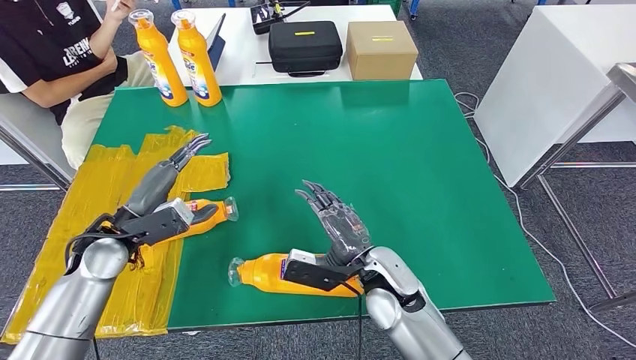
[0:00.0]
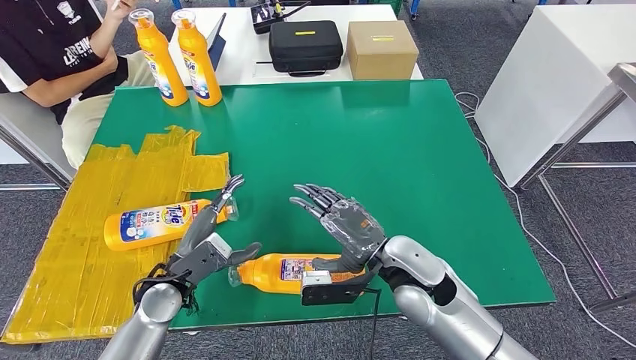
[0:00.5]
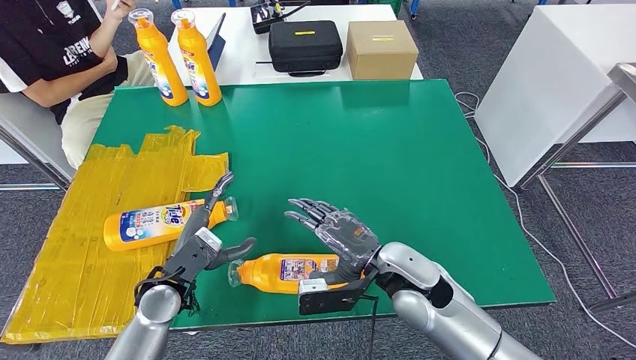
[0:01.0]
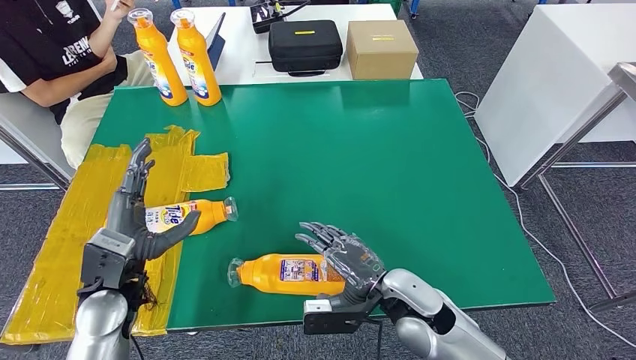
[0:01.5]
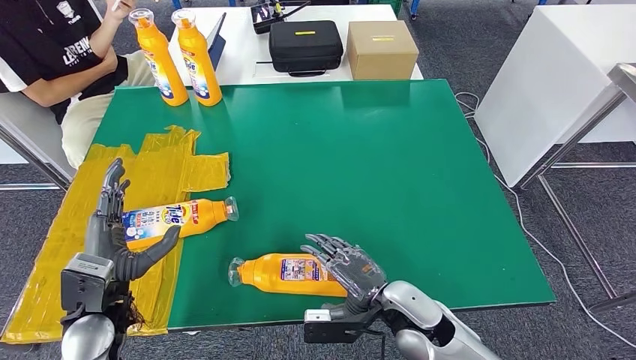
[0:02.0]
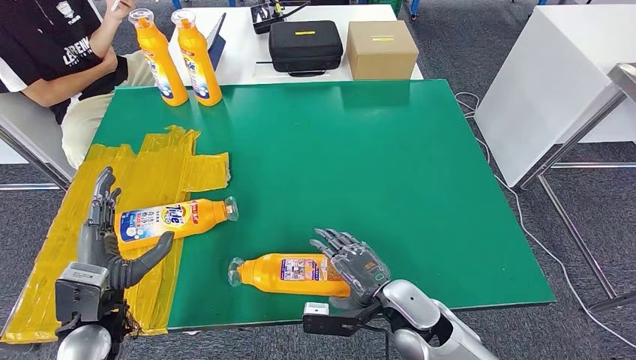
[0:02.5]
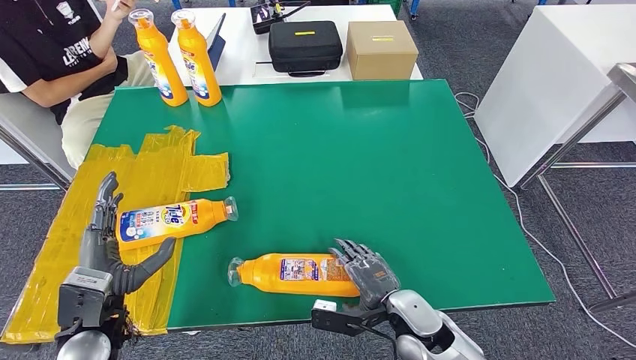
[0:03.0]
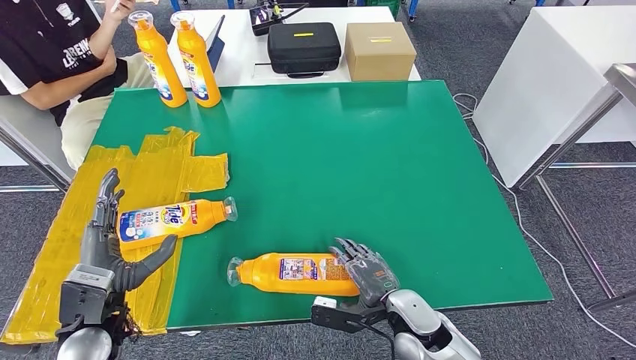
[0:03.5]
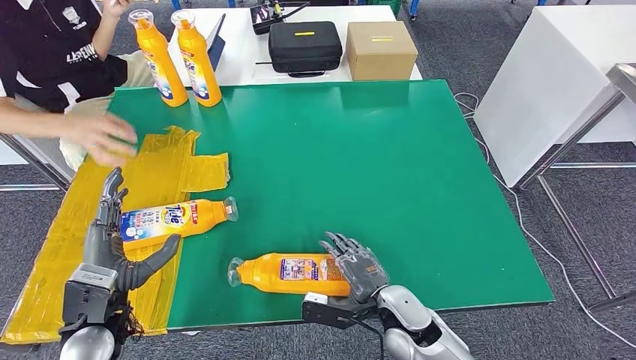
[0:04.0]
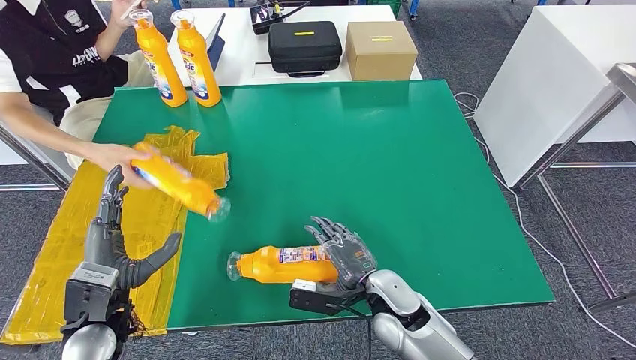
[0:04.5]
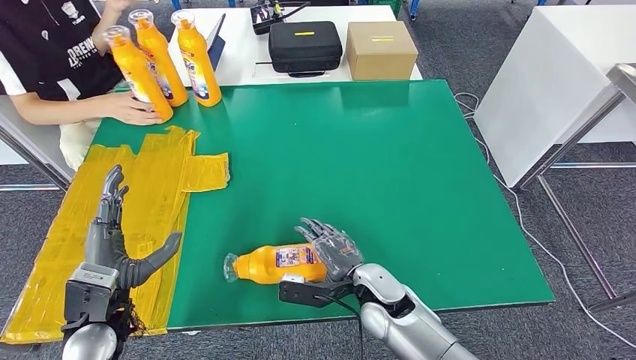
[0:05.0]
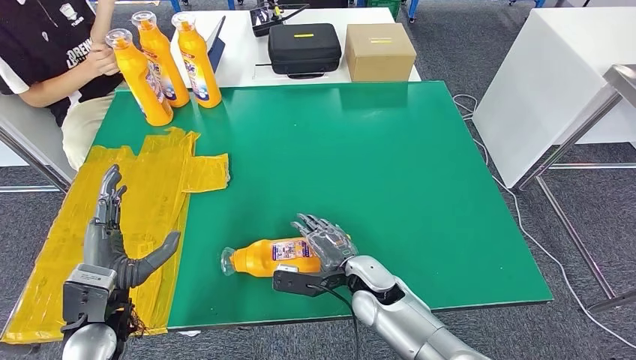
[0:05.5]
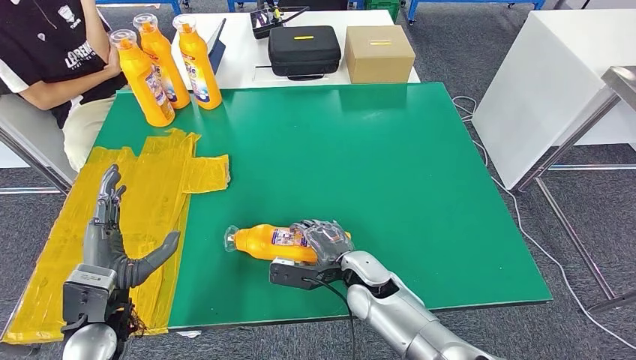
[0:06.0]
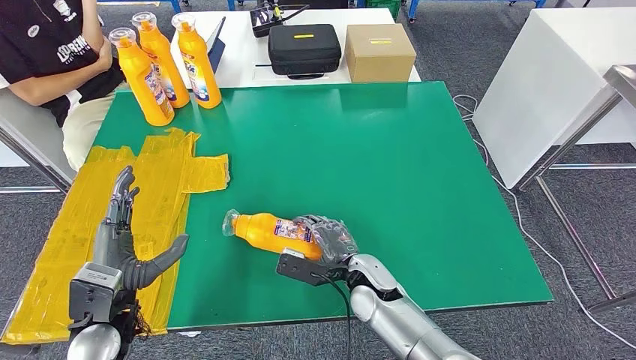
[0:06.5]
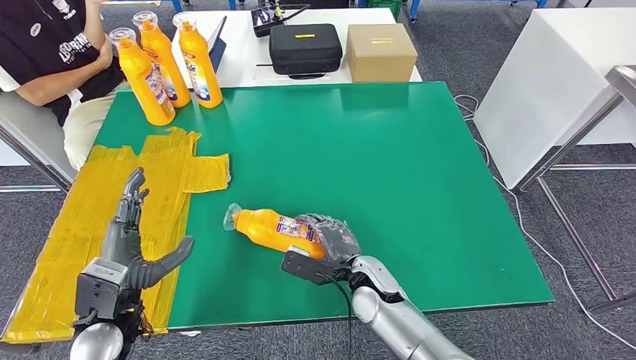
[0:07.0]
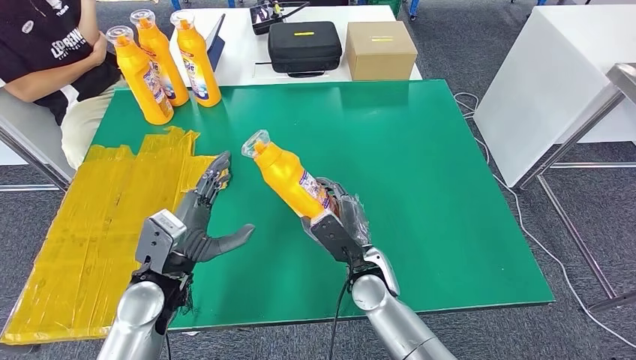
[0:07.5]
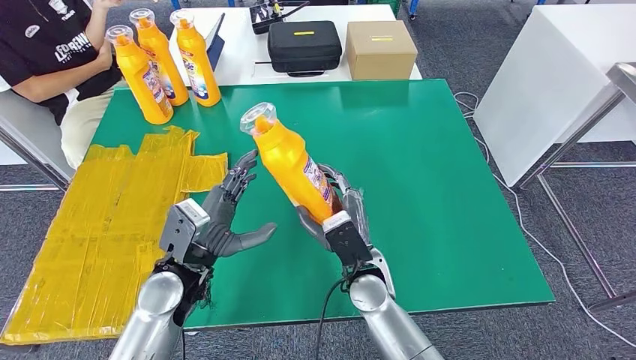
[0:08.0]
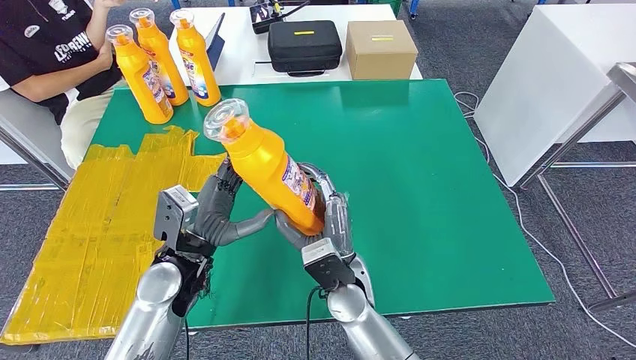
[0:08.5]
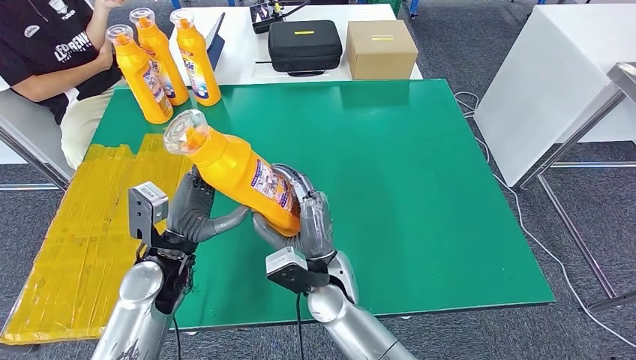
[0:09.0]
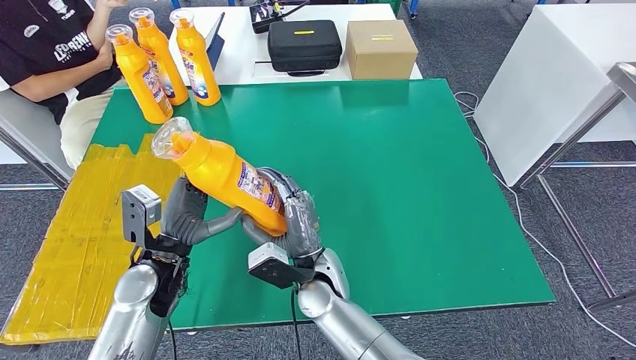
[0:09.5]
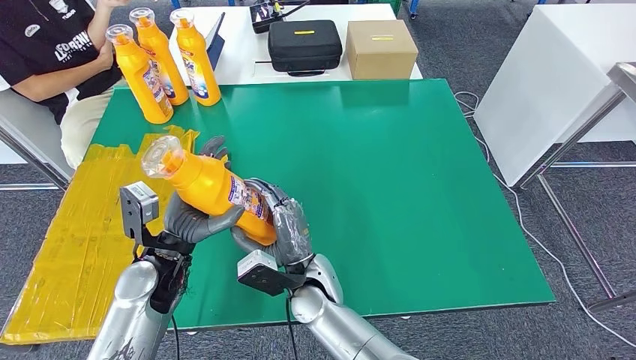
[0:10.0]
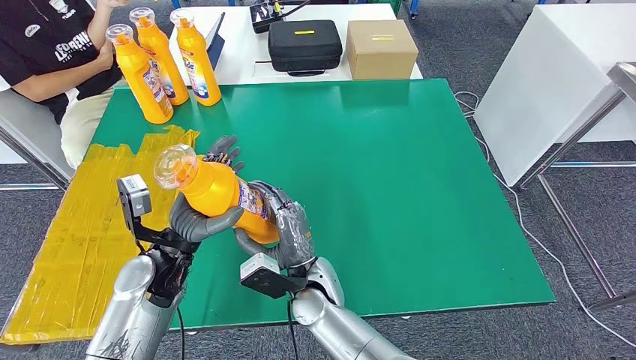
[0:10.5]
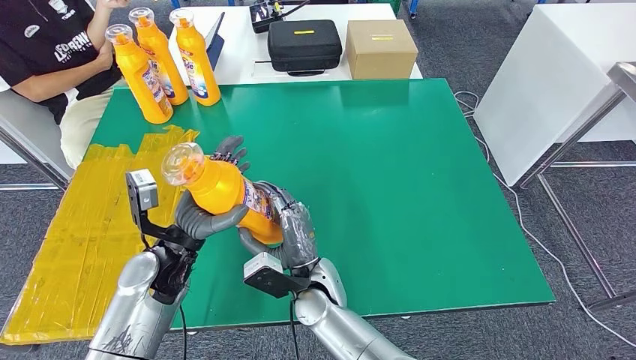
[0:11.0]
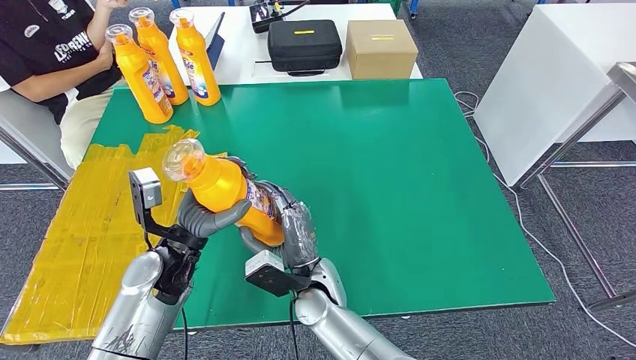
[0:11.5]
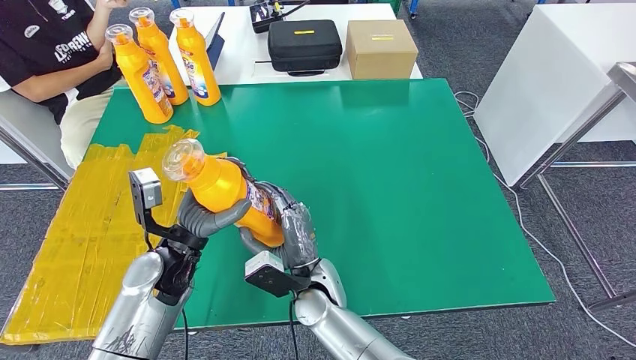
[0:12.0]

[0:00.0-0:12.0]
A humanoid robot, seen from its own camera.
Step, 0:02.5 to 0:08.5: Pick up the bottle from the table.
0:00.0 to 0:02.0: The right hand travels backward by some 5 cm. Meanwhile the left hand is displaced backward by approximately 10 cm.
0:02.0 to 0:04.0: The hands stay close to where they were, moving slightly.
0:08.0 to 0:10.0: The right hand moves to the left, roughly 10 cm.
0:10.0 to 0:12.0: The hands stay close to where they were, moving slightly.

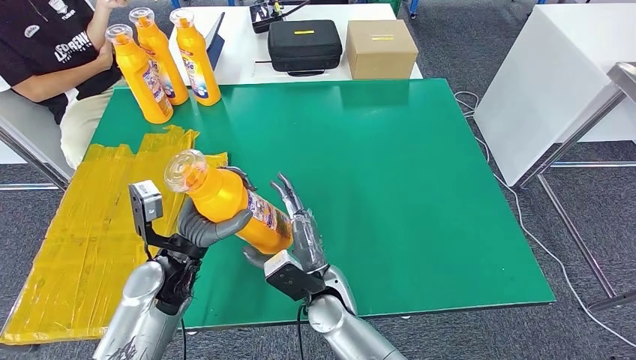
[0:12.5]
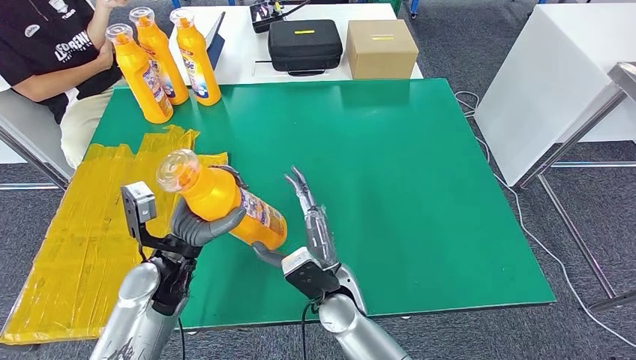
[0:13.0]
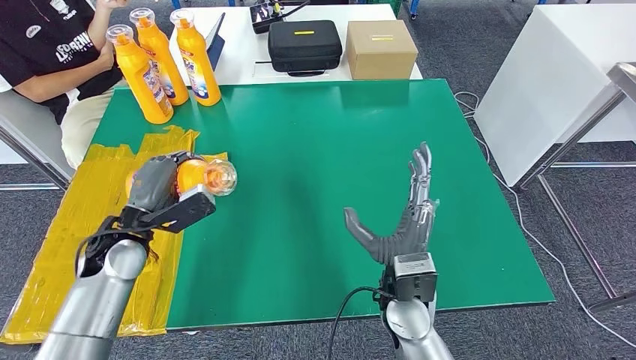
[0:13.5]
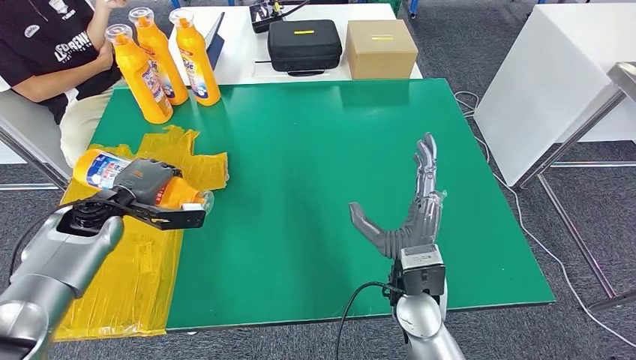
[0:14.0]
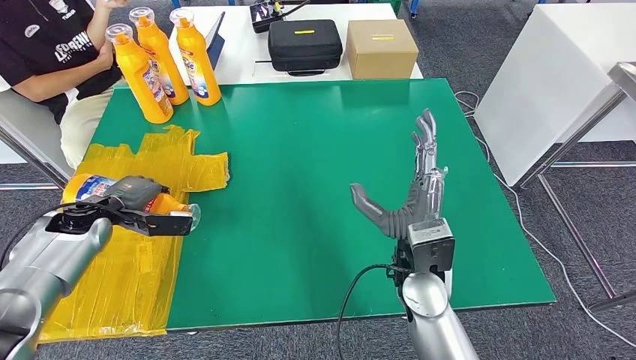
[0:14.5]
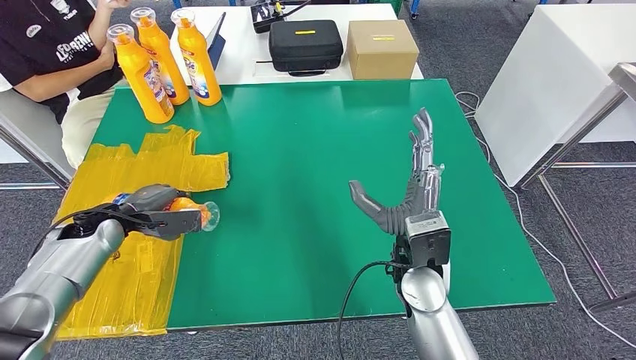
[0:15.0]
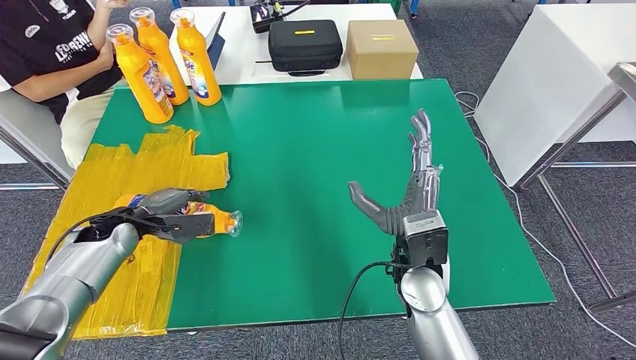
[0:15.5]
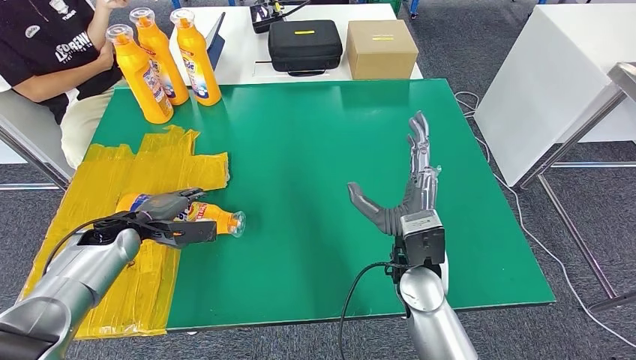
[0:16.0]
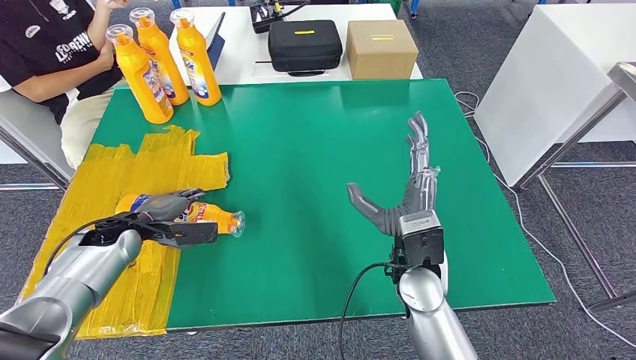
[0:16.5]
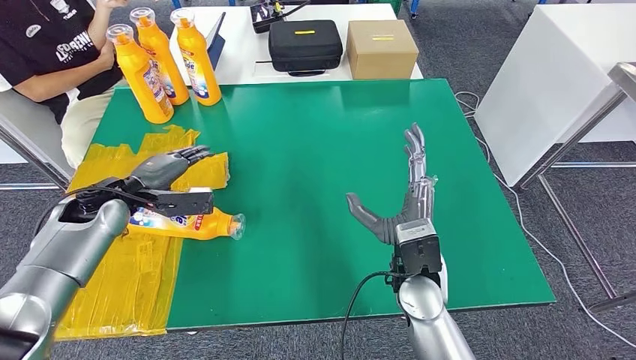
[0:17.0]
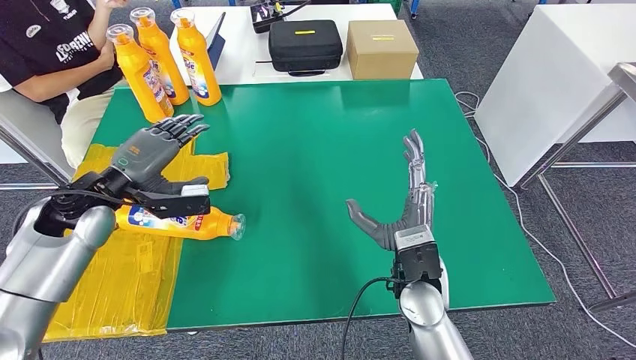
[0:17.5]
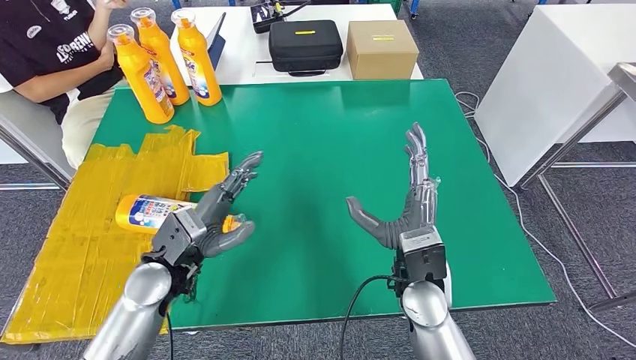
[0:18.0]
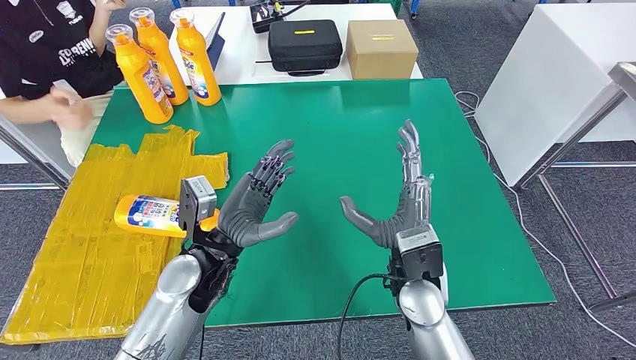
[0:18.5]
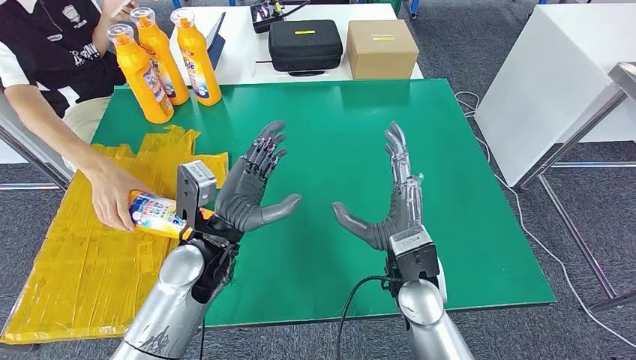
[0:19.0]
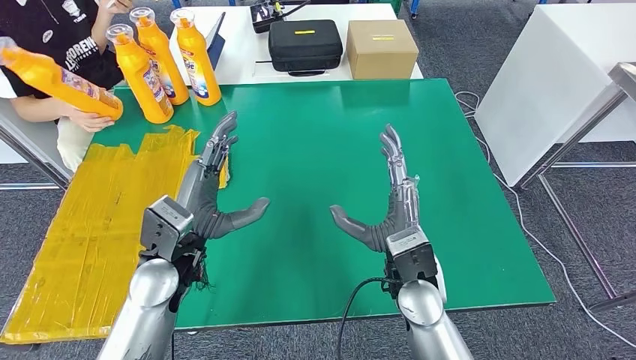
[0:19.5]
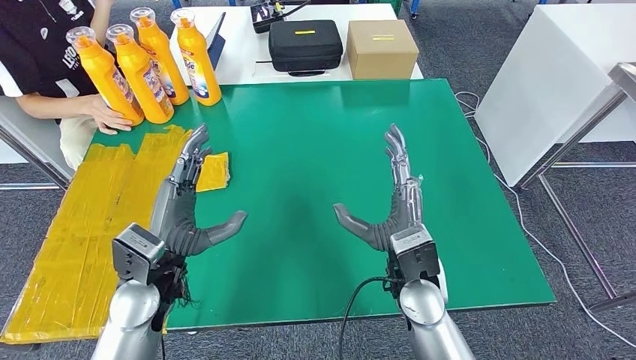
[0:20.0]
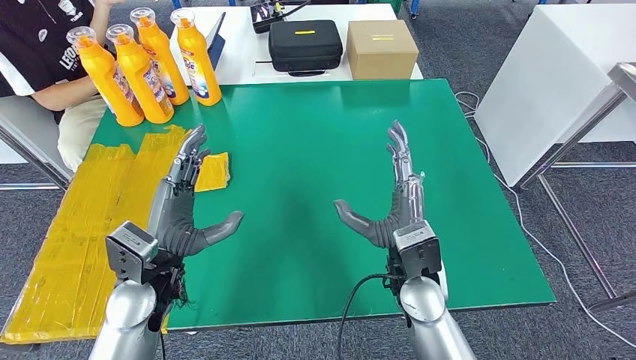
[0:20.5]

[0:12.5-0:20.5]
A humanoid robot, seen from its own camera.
Step, 0:12.5 to 0:20.5: Flip the bottle to face forward.
0:12.5 to 0:14.5: The right hand travels to the right and upward by about 15 cm. Meanwhile the left hand goes some 20 cm to the left and forward.
0:14.5 to 0:16.5: The left hand changes place by approximately 5 cm.
0:16.5 to 0:18.5: The left hand travels to the right and backward by roughly 20 cm.
0:18.5 to 0:20.5: The left hand travels to the left by roughly 5 cm.
